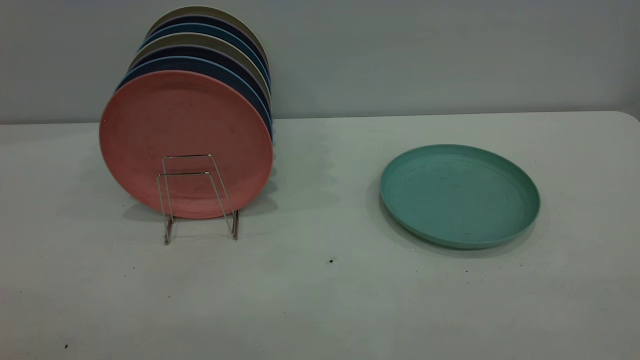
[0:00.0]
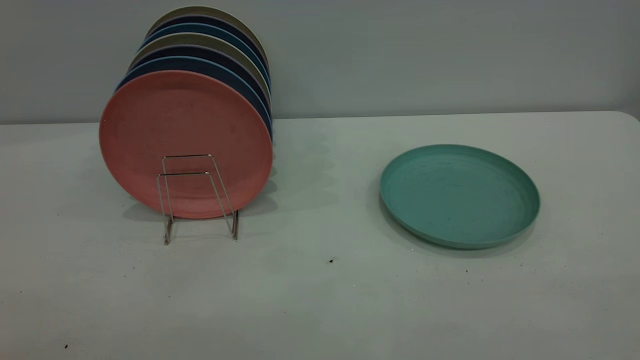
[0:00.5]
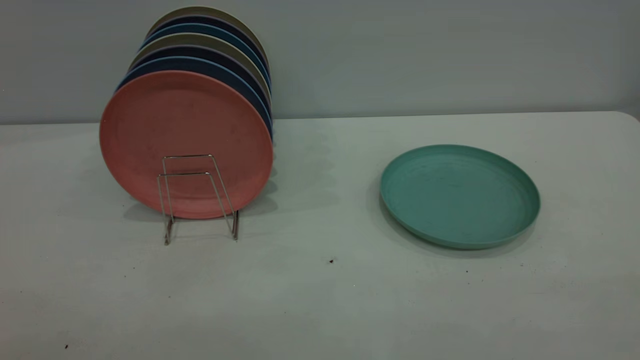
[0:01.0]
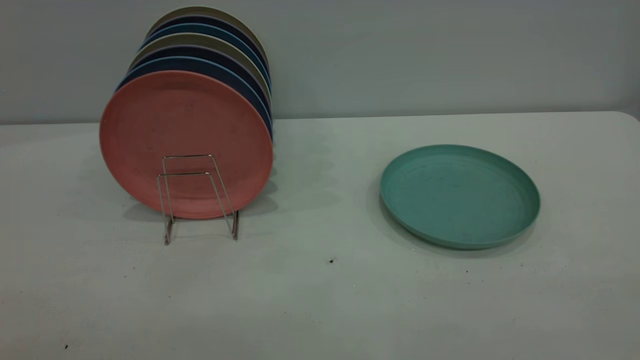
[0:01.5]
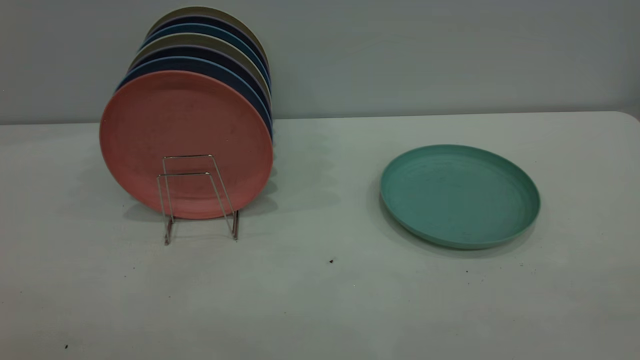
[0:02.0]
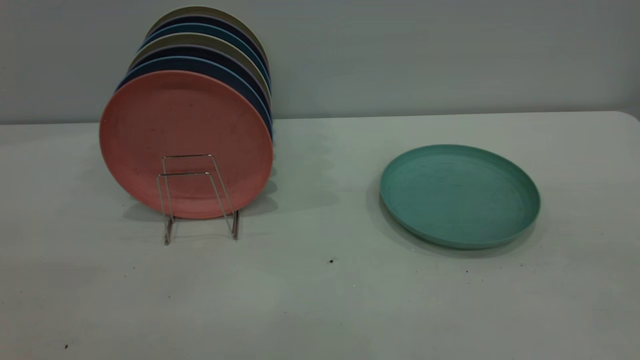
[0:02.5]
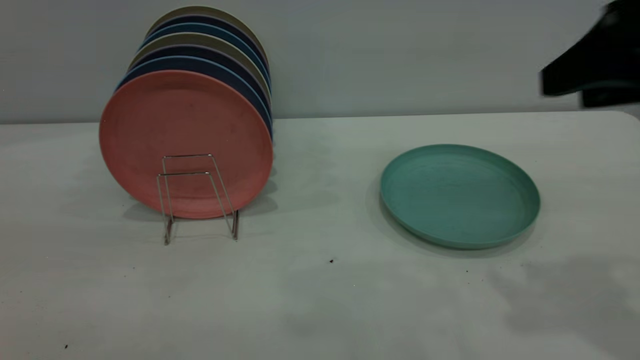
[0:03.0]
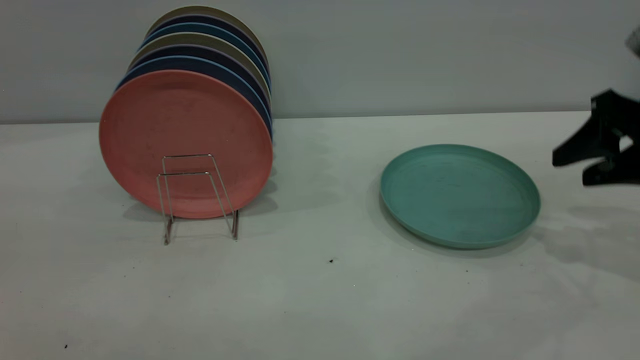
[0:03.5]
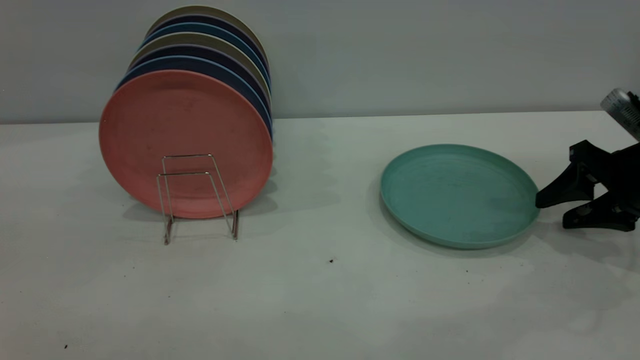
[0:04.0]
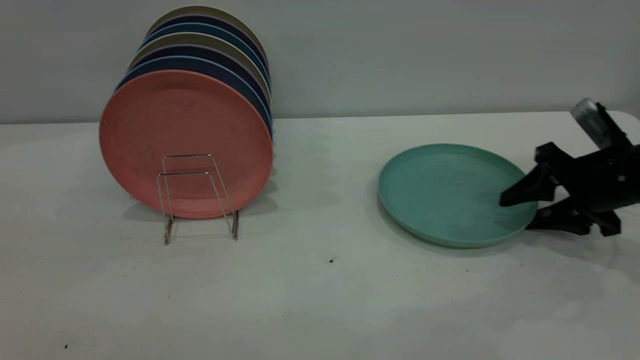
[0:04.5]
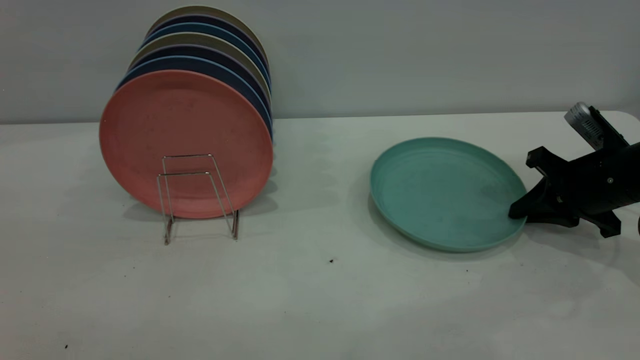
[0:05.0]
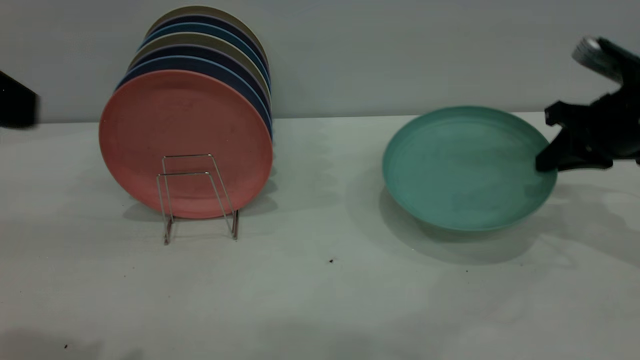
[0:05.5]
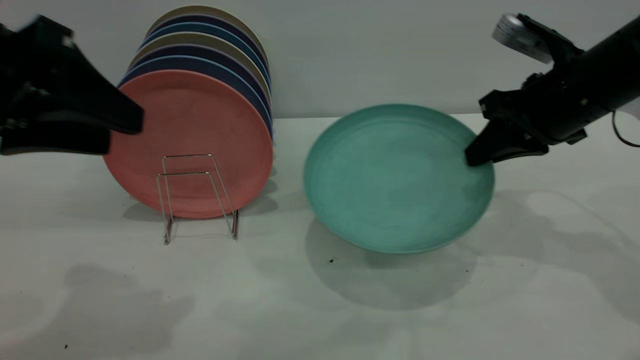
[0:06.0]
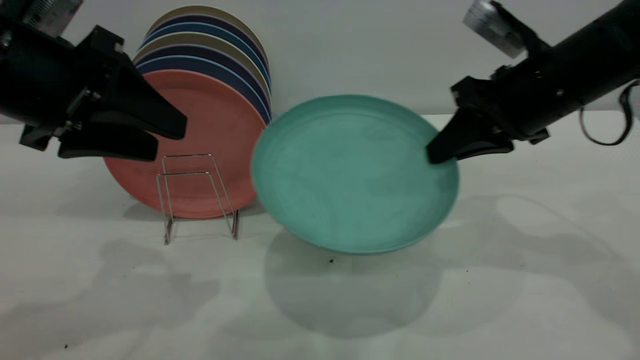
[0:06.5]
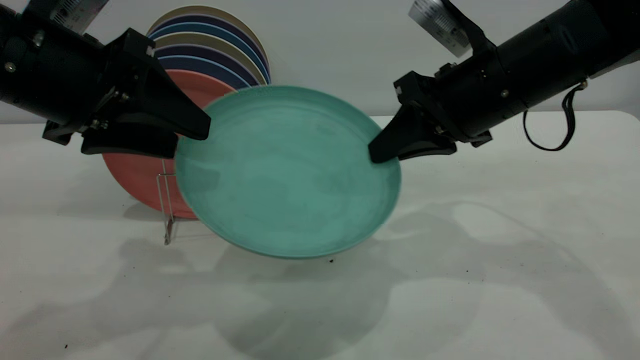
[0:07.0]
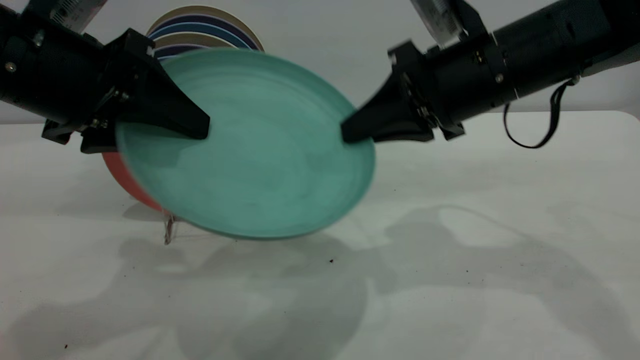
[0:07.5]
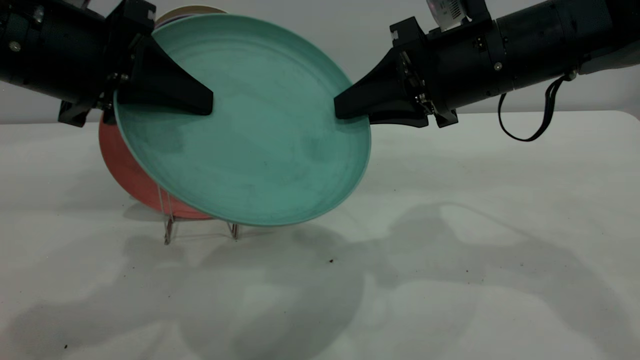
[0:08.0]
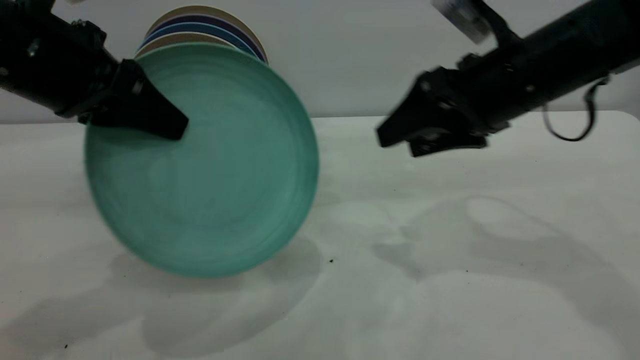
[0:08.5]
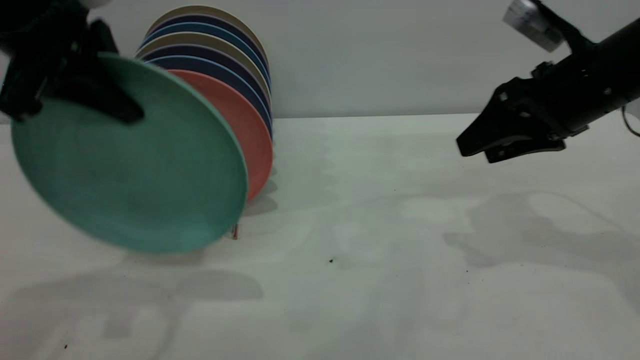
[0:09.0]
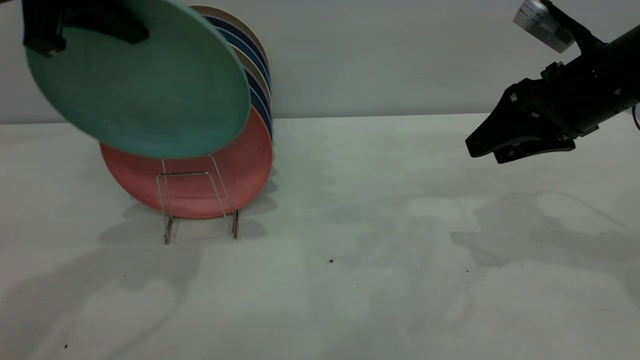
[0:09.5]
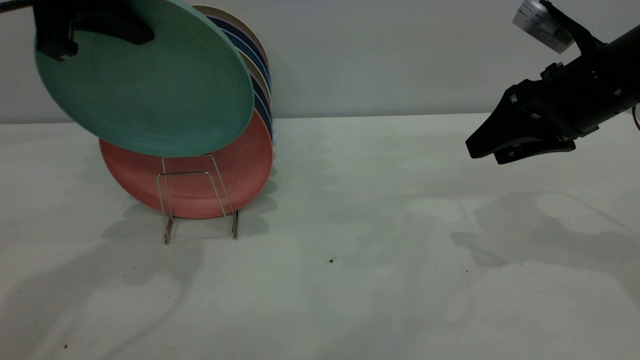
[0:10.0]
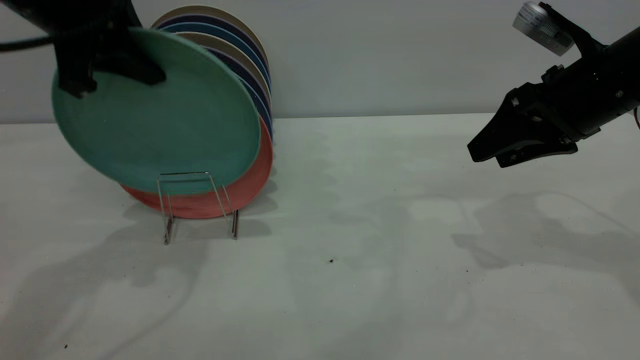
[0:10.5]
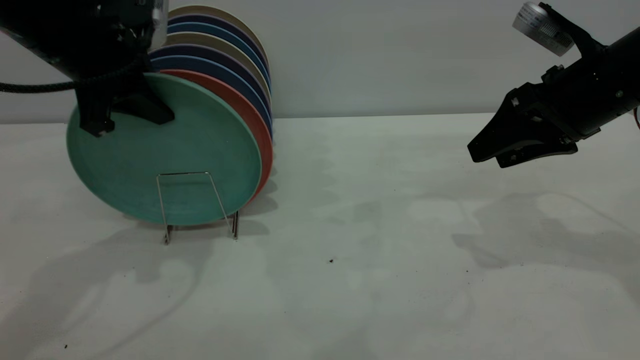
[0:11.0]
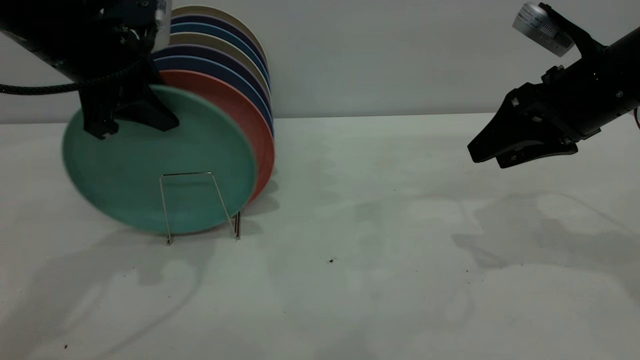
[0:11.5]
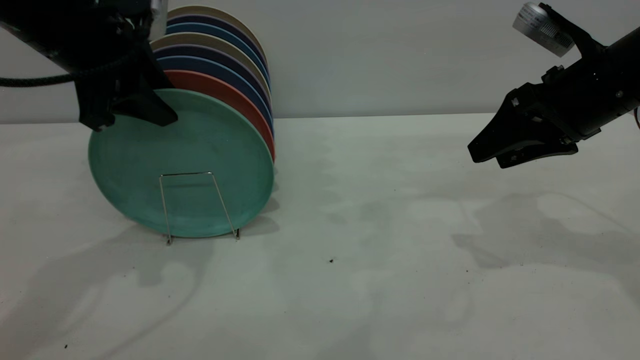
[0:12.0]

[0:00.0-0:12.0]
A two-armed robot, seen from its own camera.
Task of the whole recording: the right gripper grasp the green plate, the right gripper pass the green plate to the left gripper, and the left gripper place the green plate on the plate rack.
Step, 0:00.0 to 0:05.5: Pick up the plate with the right gripper.
Step, 0:06.0 to 0:09.0: Pass the plate from the right gripper to the left gripper.
0:02.0 to 0:04.0: The right gripper goes some 50 cm forward and downward.
0:04.0 to 0:06.0: The right gripper heads to the left and upward, covering roughly 15 cm, and closes its fingers, while the left gripper travels forward and downward by some 15 cm.
0:06.0 to 0:08.0: The left gripper moves approximately 5 cm, and closes up. Meanwhile the right gripper travels to the left by about 10 cm.
0:08.0 to 0:10.0: The left gripper moves upward and forward, approximately 10 cm; the right gripper moves to the right, some 10 cm, and opens.
0:10.0 to 0:12.0: The left gripper heads downward, covering roughly 5 cm, and opens its fingers.

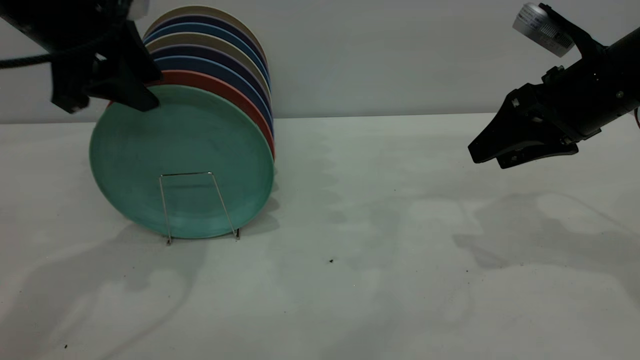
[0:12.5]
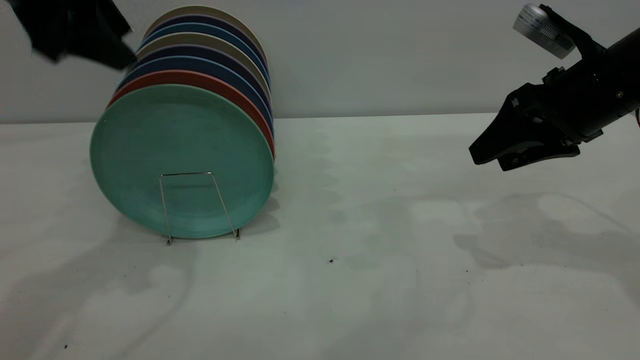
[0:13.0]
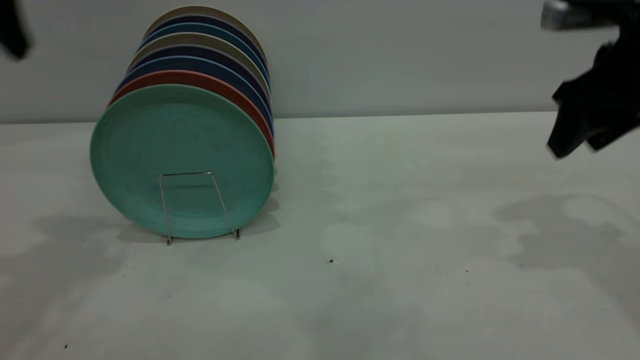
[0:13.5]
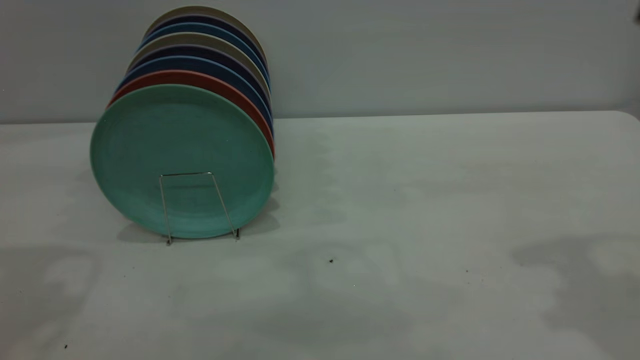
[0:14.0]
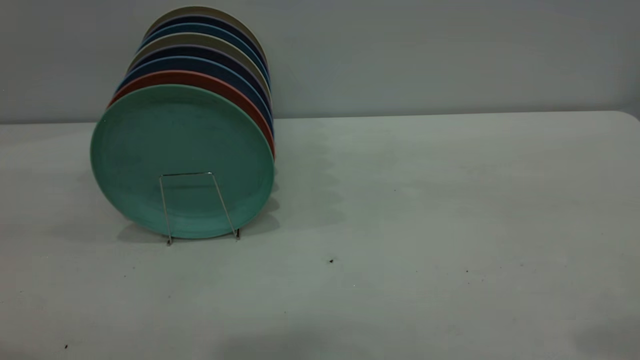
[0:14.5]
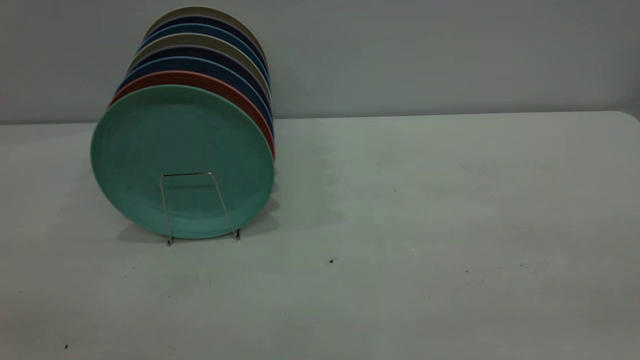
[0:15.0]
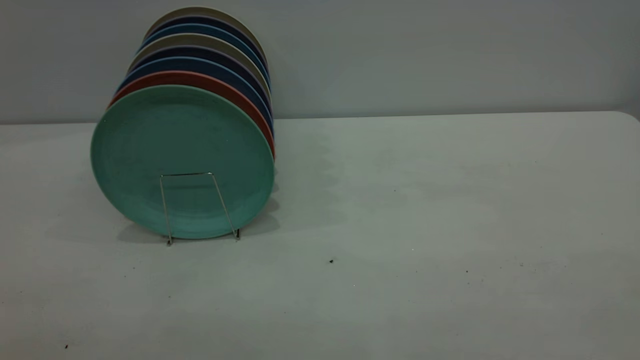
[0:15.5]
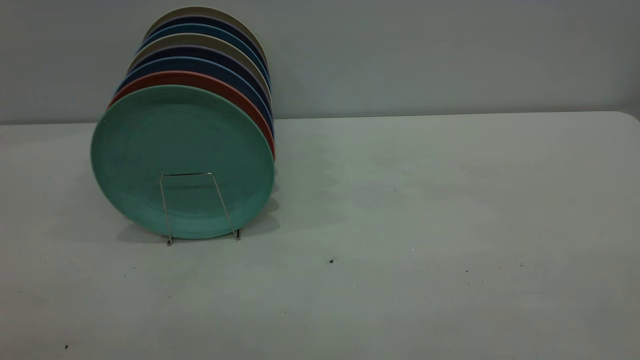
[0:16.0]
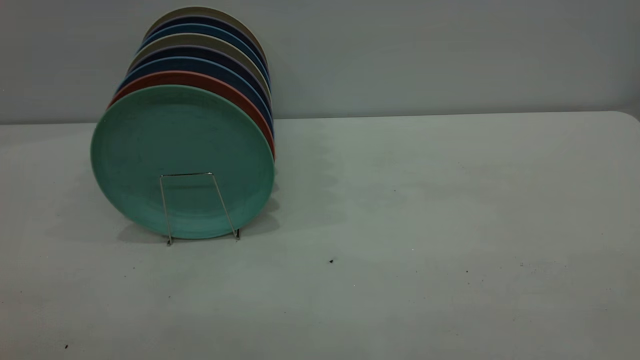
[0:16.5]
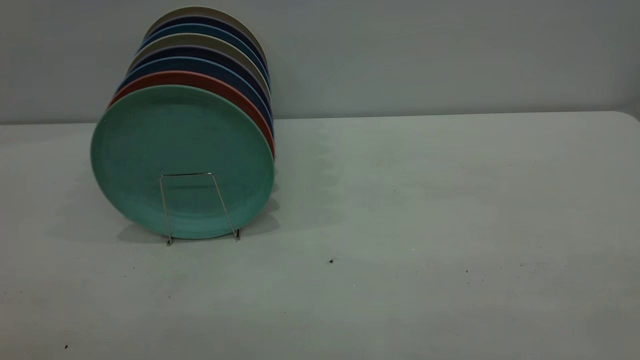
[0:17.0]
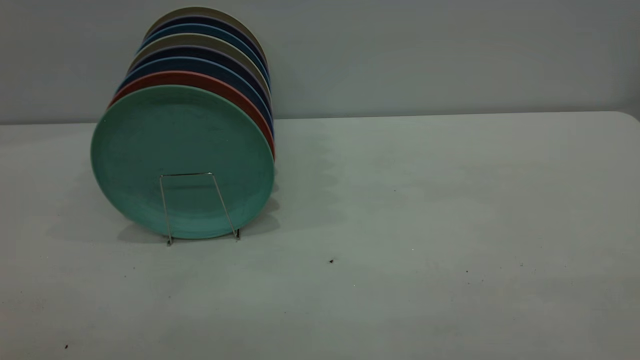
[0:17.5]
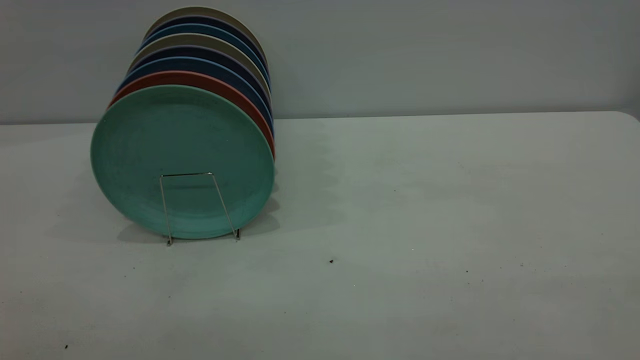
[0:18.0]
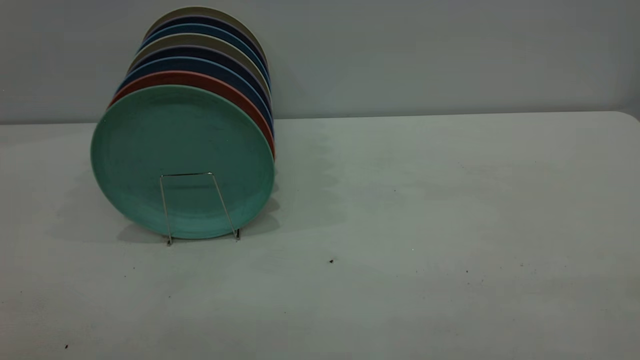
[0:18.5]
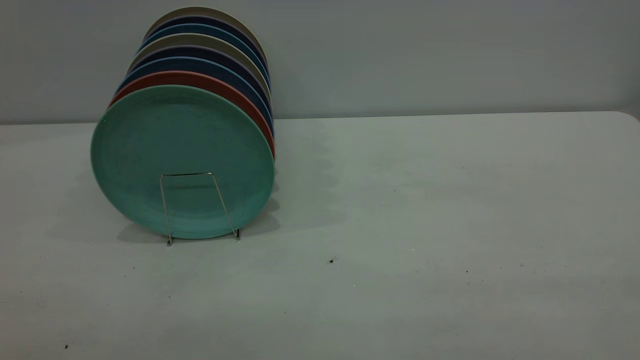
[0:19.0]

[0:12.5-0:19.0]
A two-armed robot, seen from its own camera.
Task of the whole recording: the right gripper grasp the green plate, the right gripper pass the green plate to the left gripper, and the left gripper place the green plate on the plate rack.
0:12.5 to 0:14.5: The right gripper travels upward and backward by roughly 30 cm. Meanwhile the left gripper travels backward by about 20 cm.
